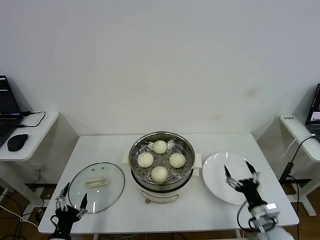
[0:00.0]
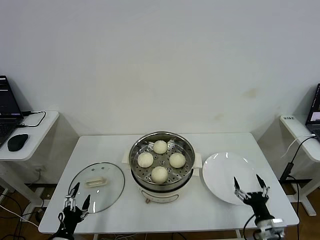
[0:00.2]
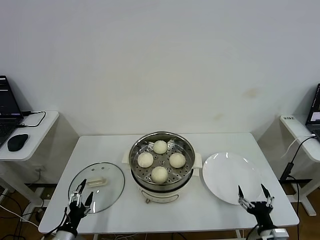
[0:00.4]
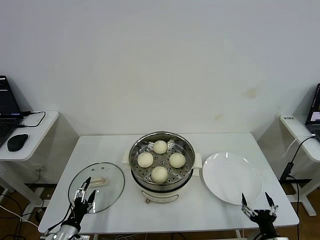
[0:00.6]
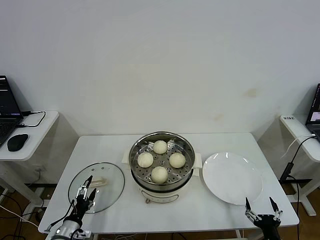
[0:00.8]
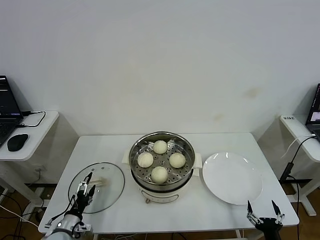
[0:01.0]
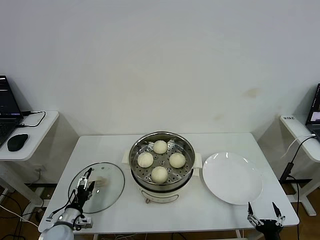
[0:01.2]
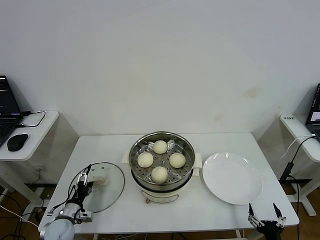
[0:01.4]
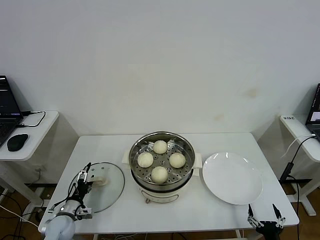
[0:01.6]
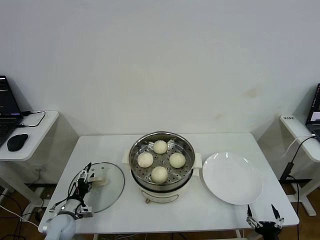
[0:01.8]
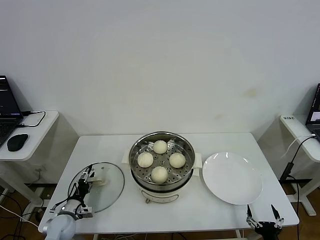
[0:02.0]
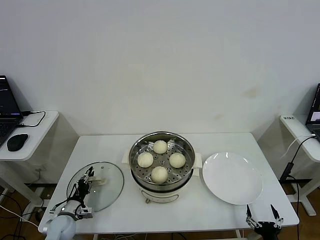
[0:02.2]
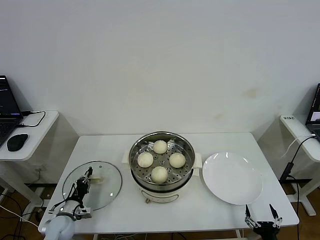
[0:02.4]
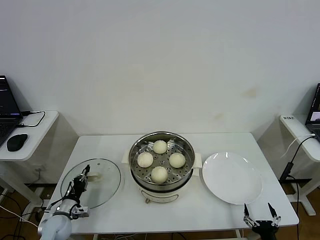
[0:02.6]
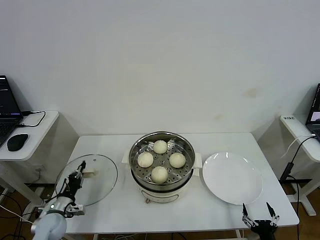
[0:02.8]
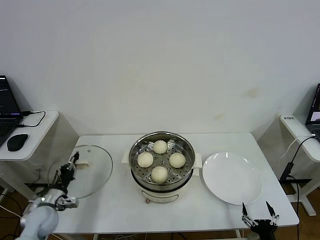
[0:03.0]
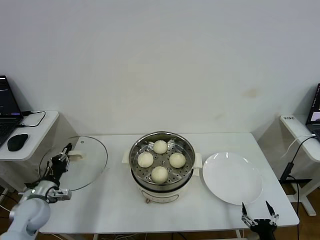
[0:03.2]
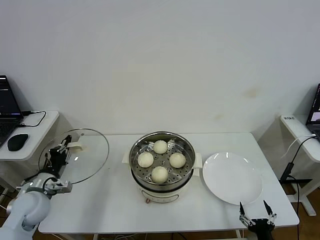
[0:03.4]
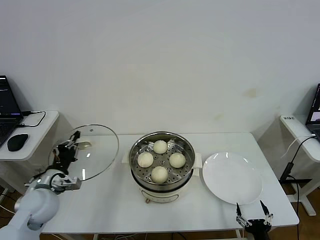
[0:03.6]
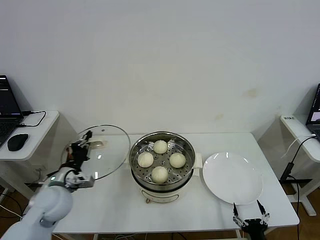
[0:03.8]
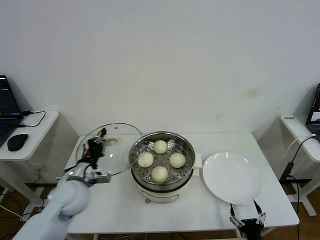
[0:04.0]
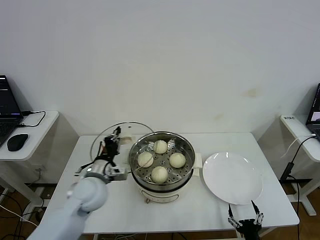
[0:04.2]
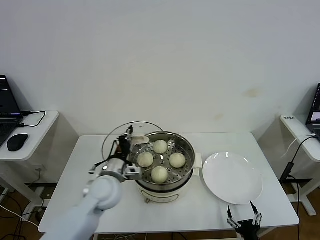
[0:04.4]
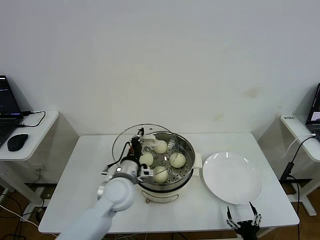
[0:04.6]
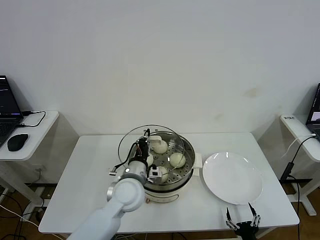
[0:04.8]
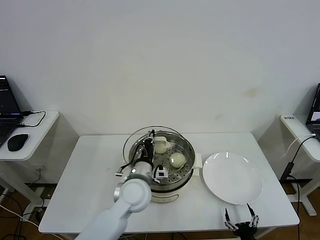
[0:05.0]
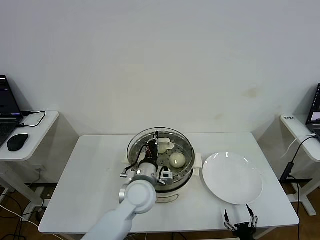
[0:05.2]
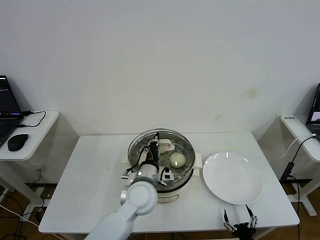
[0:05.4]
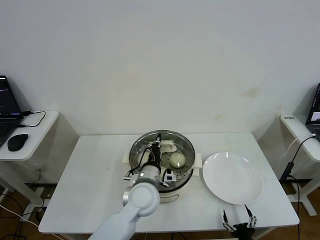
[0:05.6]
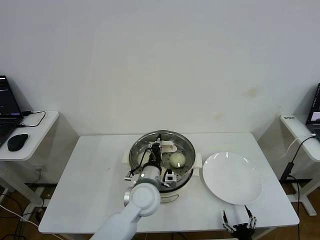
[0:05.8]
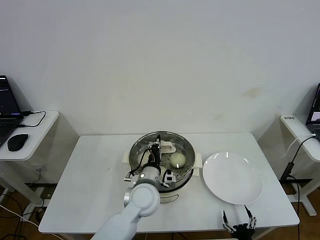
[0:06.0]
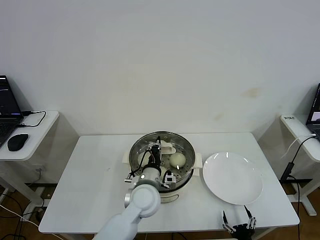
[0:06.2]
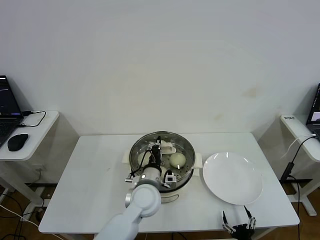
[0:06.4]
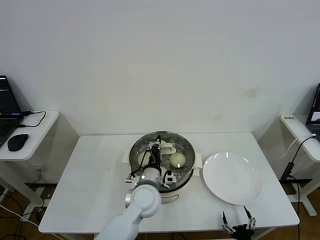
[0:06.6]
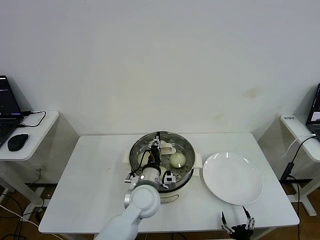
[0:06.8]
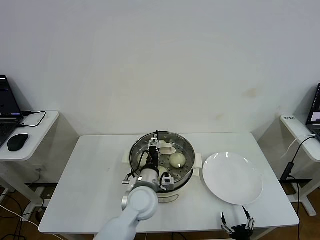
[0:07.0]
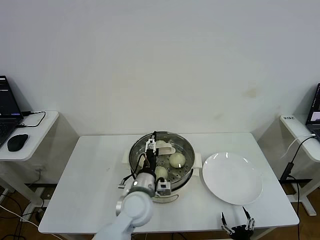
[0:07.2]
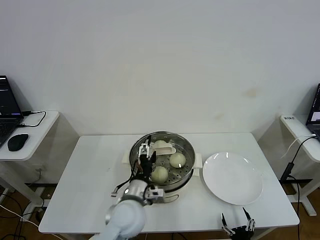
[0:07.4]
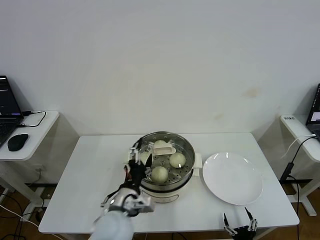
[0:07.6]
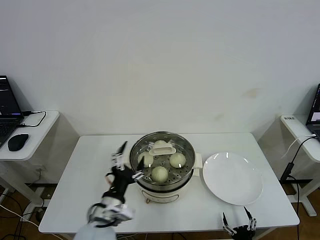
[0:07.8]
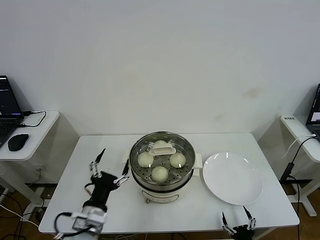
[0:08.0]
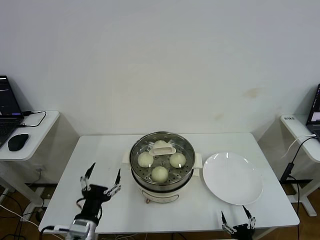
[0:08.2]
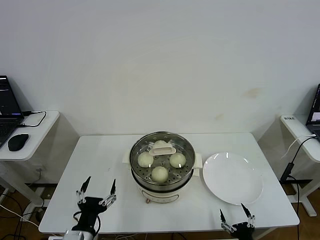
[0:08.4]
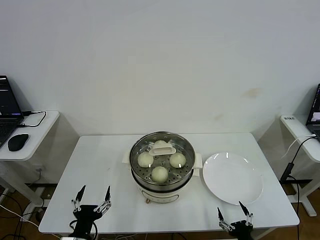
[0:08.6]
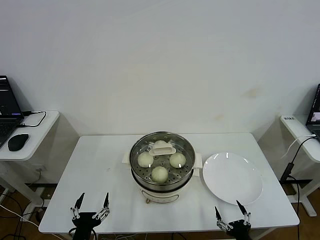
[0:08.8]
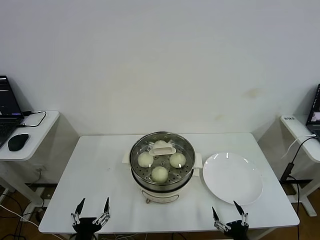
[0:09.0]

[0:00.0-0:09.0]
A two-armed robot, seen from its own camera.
Step, 0:00.0 to 0:02.6: Grasp the pot lid with left gripper.
Step, 0:02.8 to 0:07.0: Place the pot lid on the steamer with left gripper.
0:00.0 to 0:01.6: The left gripper shifts some 15 cm forward and downward; the right gripper goes some 15 cm backward and downward.
0:01.6 to 0:03.0: The left gripper goes some 5 cm upward, and closes its fingers.
0:03.0 to 0:04.4: The left gripper shifts about 25 cm to the right and upward.
0:04.4 to 0:06.0: The left gripper heads to the right, covering some 10 cm.
0:06.0 to 0:07.6: The left gripper travels backward and to the left by roughly 10 cm, and opens its fingers.
0:07.6 to 0:09.0: The right gripper goes roughly 5 cm upward, while the left gripper goes roughly 20 cm backward, to the left and downward.

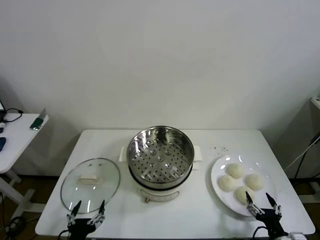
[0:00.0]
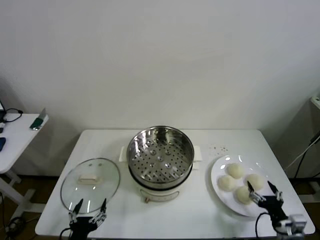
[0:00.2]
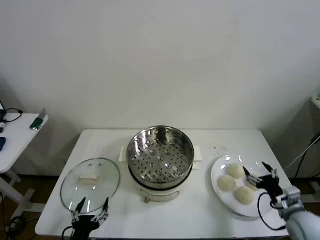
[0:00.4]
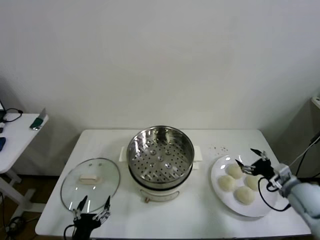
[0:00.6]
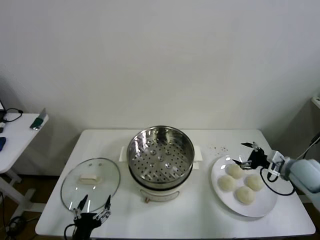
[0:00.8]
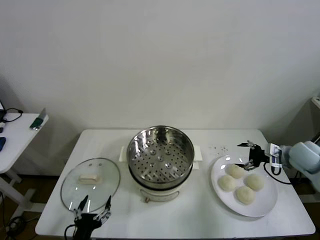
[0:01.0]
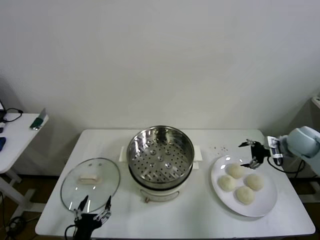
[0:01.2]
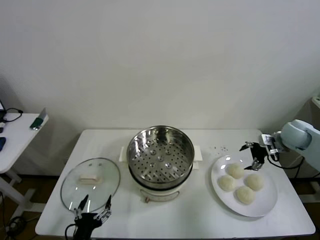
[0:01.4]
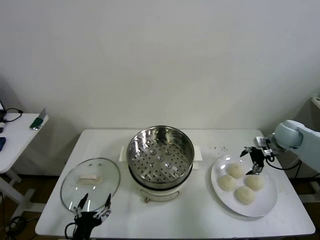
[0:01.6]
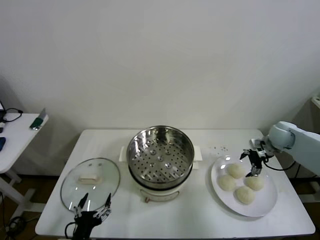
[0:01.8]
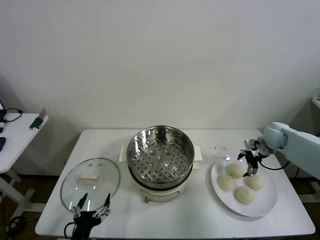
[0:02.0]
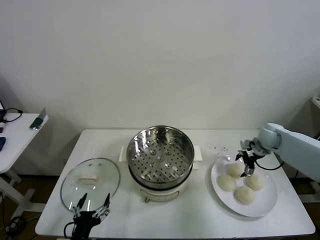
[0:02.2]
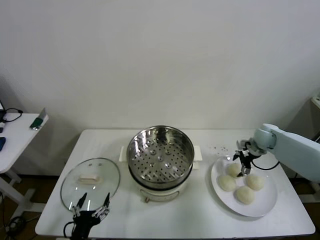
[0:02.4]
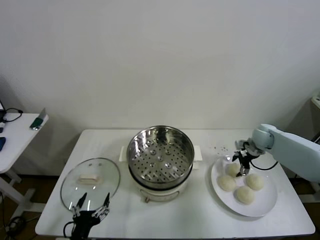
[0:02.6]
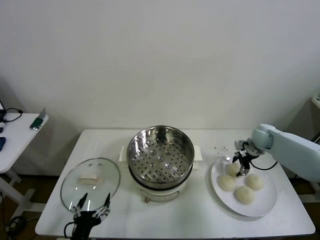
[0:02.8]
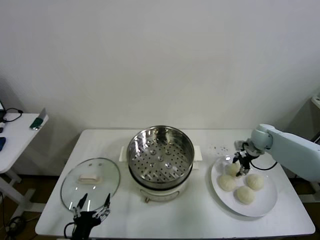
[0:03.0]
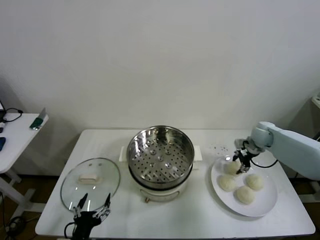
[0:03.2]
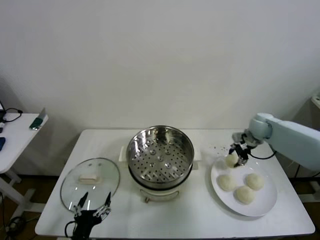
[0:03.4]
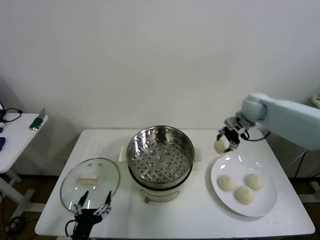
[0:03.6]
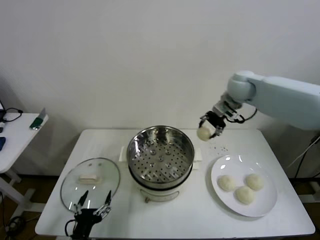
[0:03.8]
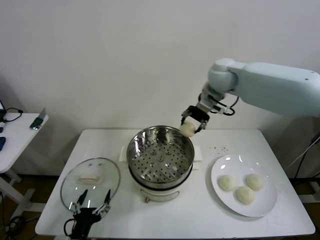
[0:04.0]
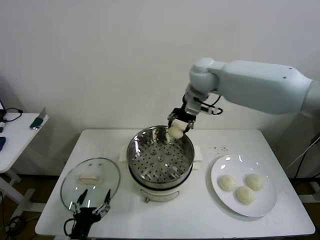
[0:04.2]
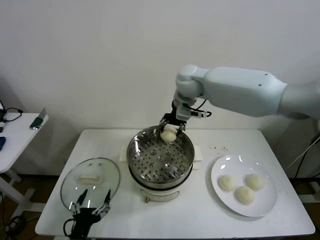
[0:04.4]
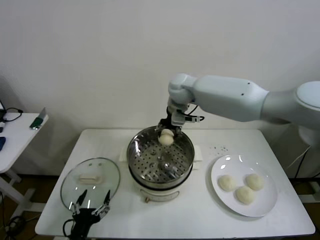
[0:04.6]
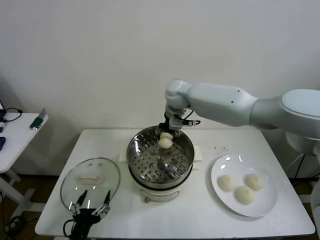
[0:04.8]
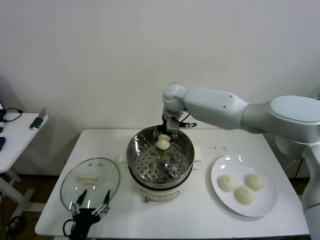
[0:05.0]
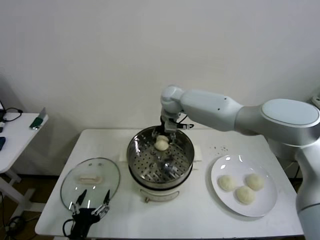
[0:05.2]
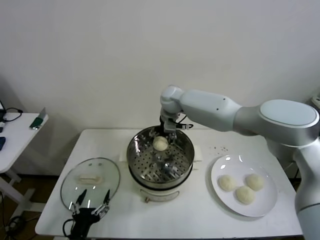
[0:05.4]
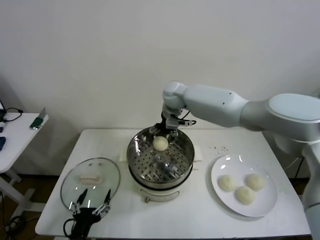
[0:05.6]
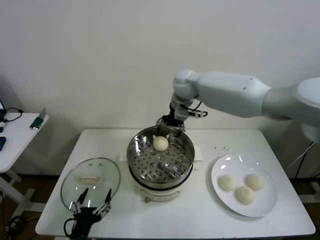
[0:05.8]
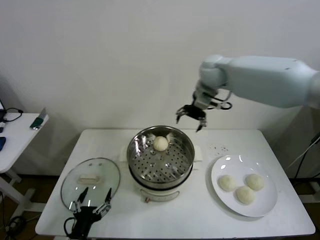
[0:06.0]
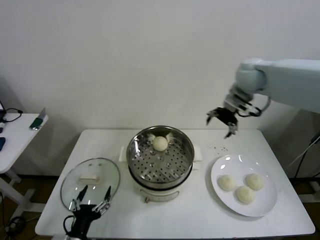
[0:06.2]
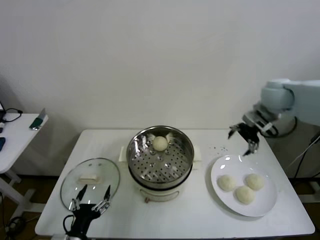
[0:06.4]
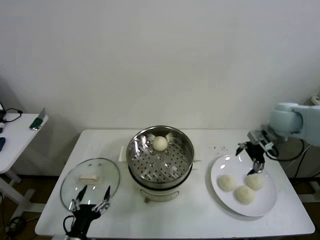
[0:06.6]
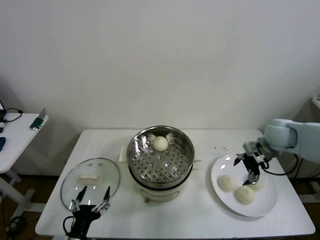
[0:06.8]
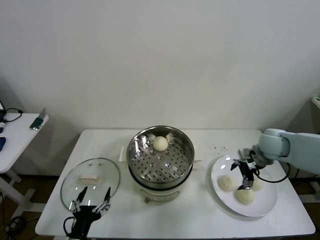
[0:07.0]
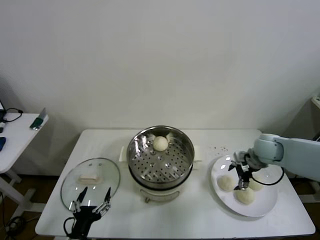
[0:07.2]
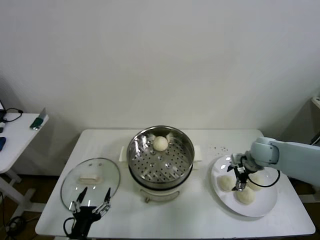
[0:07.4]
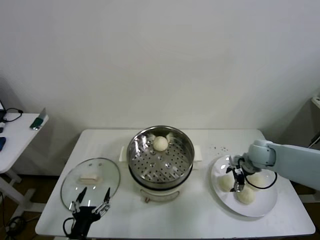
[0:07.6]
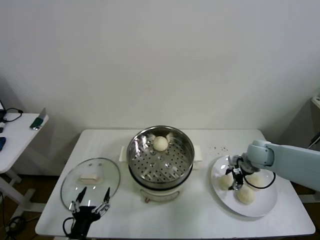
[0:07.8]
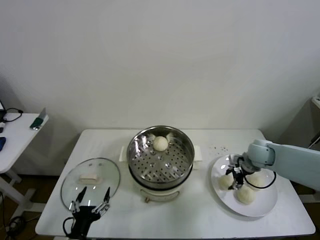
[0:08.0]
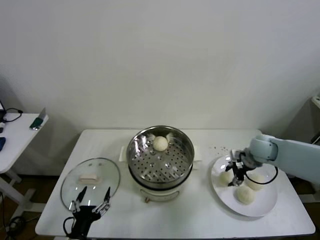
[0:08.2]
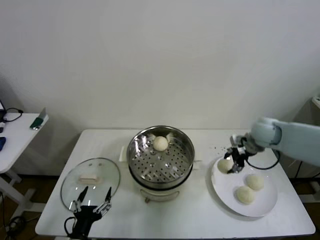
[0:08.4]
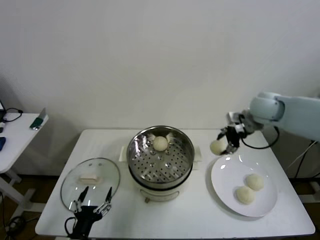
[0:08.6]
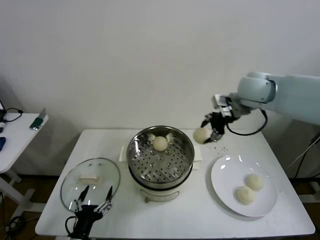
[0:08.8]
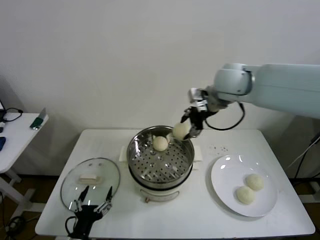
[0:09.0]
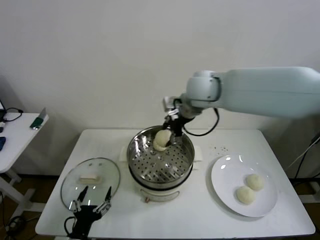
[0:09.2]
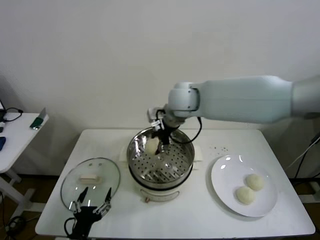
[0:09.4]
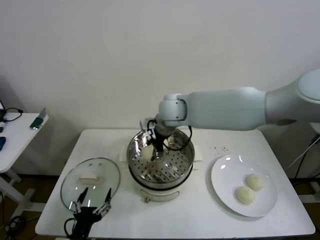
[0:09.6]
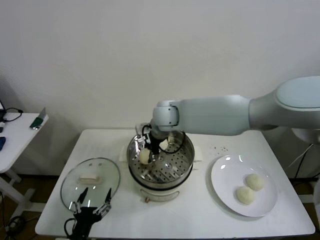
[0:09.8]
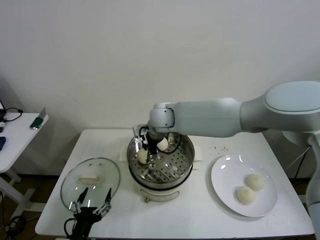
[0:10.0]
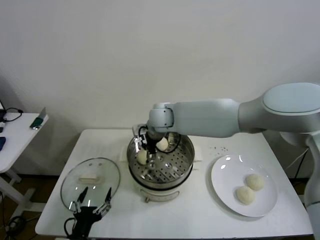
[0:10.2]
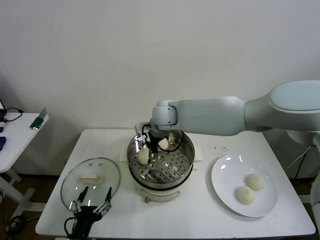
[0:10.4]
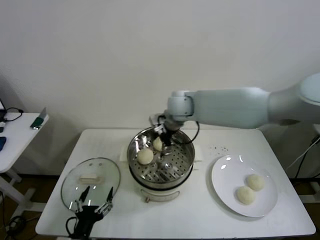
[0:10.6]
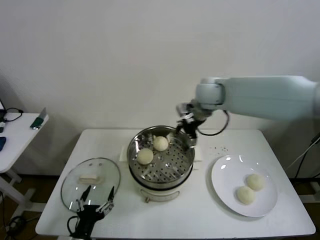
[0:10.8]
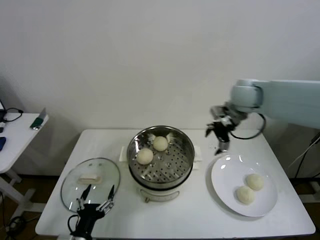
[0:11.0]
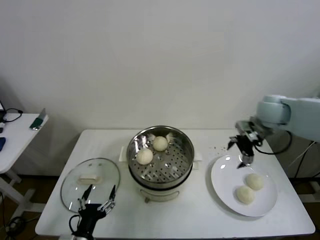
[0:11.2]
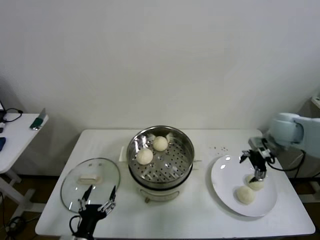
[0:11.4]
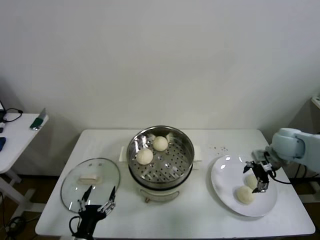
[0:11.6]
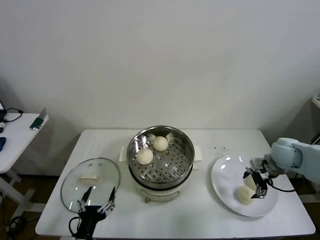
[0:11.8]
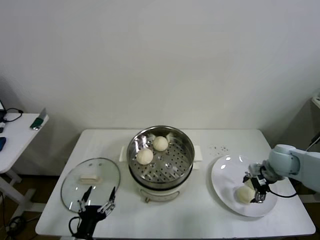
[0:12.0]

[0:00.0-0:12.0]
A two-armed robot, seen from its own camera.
Step, 0:00.0 to 0:03.0: Grasp the baozi in the plate with right gripper.
Step, 0:03.2 to 0:05.6: Place the baozi on the steamer with right gripper.
Step, 0:05.8 to 0:07.8: Grasp the baozi in the plate with right gripper.
Step, 0:08.0 to 0:10.4: Place the baozi on the steamer with right gripper.
0:01.6 to 0:03.0: The right gripper travels downward by approximately 5 cm, and closes.
0:03.0 to 0:04.4: The right gripper goes approximately 40 cm to the left and upward.
0:04.4 to 0:06.0: The right gripper moves to the right, about 10 cm, and opens.
0:06.0 to 0:07.6: The right gripper moves downward, to the right and backward, some 35 cm.
0:07.6 to 0:09.0: The right gripper shifts some 35 cm upward and to the left, and closes.
0:09.0 to 0:10.4: The right gripper shifts some 20 cm to the left and downward, and opens up.
0:10.4 to 0:12.0: The right gripper is displaced to the right by roughly 40 cm.

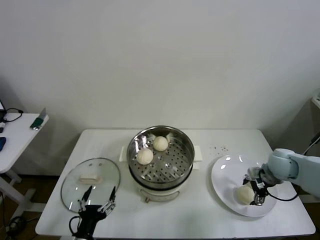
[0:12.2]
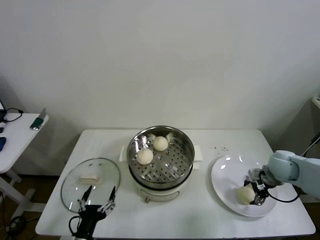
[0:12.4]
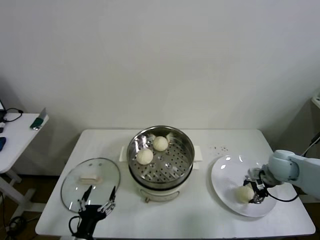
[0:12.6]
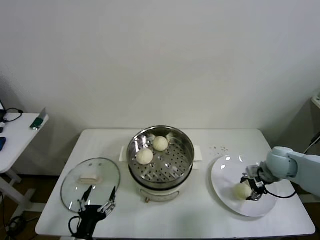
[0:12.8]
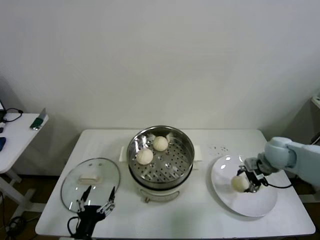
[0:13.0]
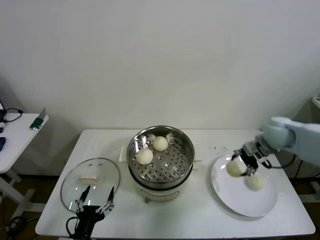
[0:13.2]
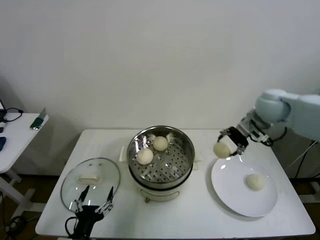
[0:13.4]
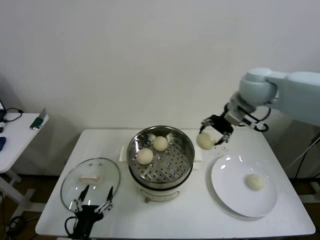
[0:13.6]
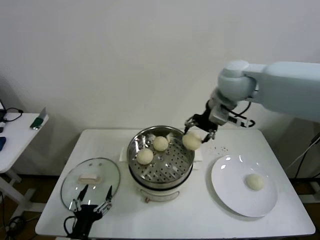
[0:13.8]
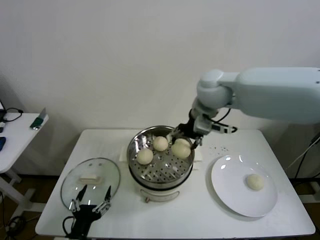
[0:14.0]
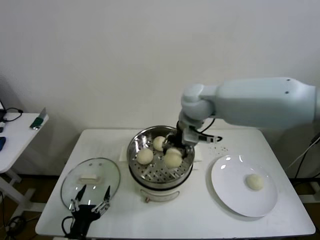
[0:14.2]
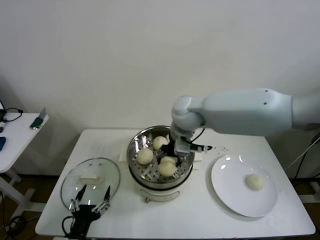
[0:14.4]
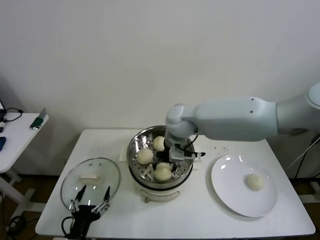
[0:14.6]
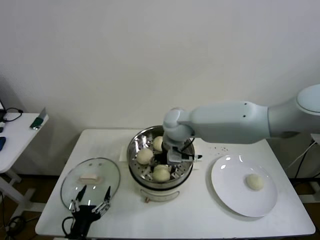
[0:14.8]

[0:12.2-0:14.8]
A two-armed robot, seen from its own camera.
0:12.2 to 0:13.4: The right gripper shifts about 20 cm upward, to the left and forward, and closes.
0:13.4 to 0:14.8: The right gripper travels to the left by about 30 cm.
